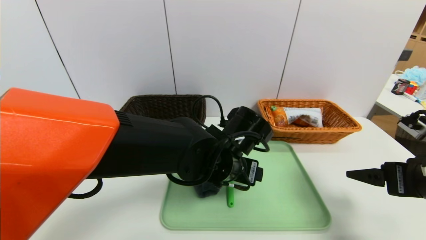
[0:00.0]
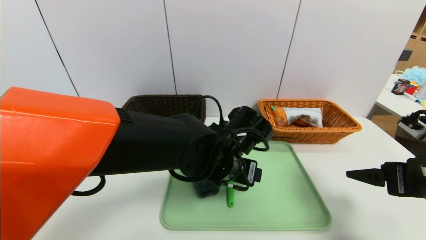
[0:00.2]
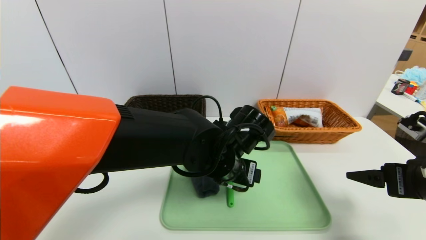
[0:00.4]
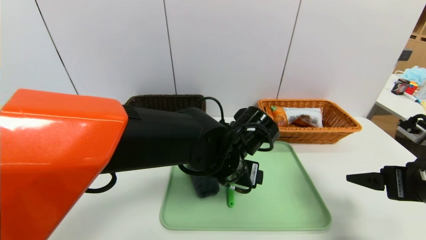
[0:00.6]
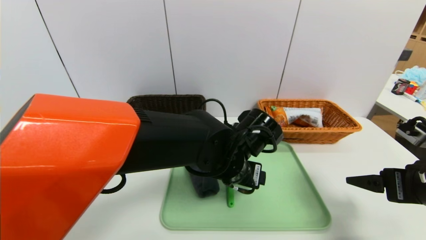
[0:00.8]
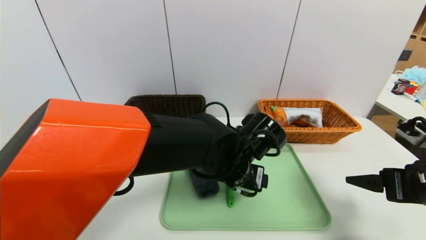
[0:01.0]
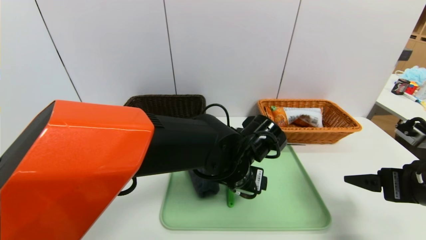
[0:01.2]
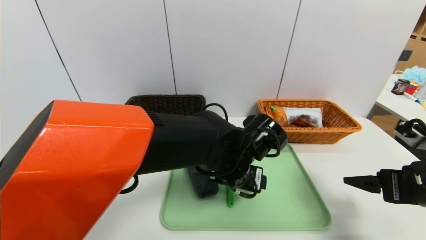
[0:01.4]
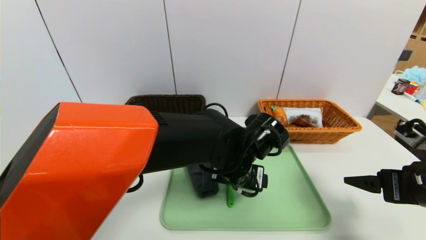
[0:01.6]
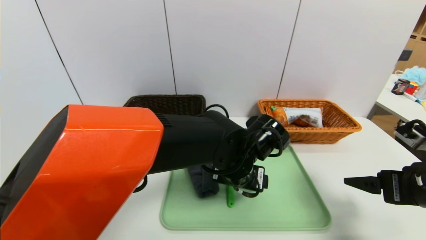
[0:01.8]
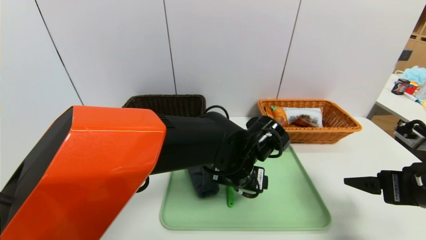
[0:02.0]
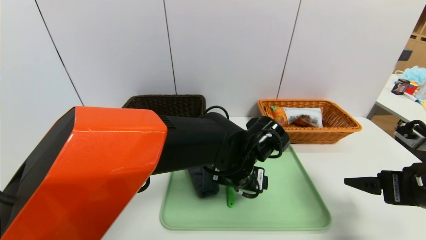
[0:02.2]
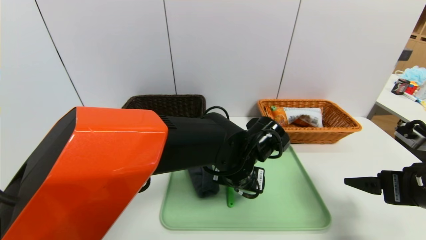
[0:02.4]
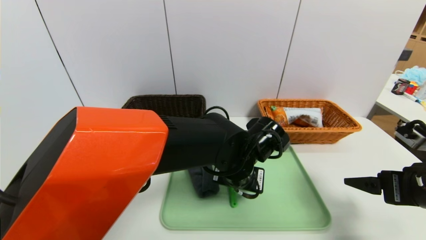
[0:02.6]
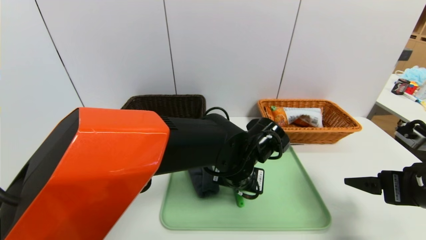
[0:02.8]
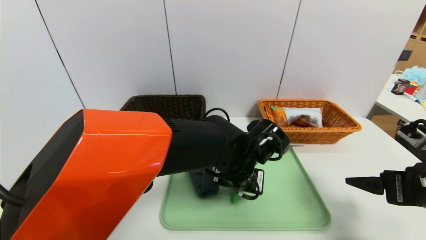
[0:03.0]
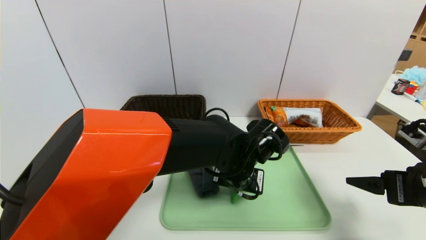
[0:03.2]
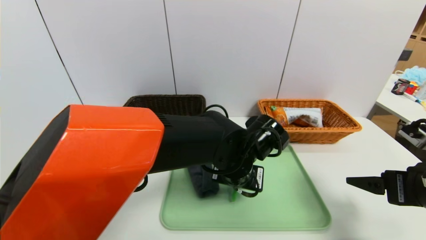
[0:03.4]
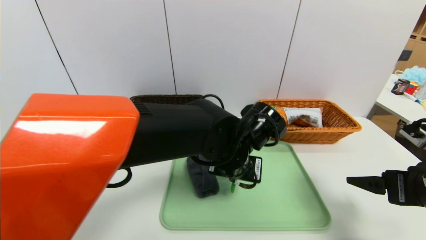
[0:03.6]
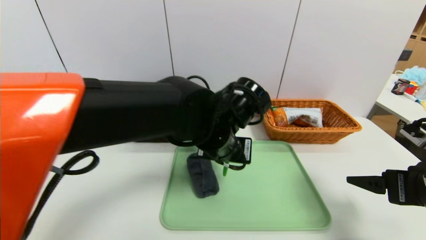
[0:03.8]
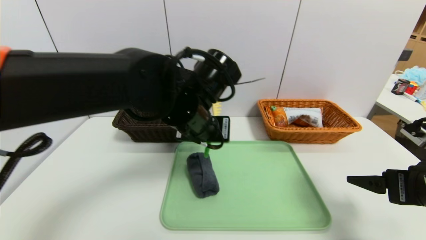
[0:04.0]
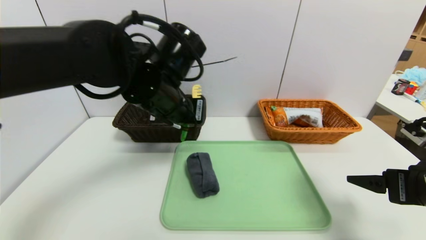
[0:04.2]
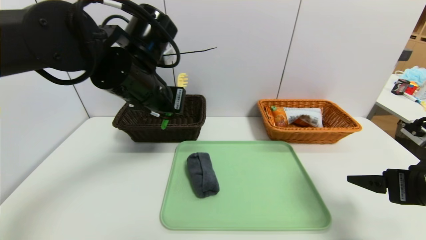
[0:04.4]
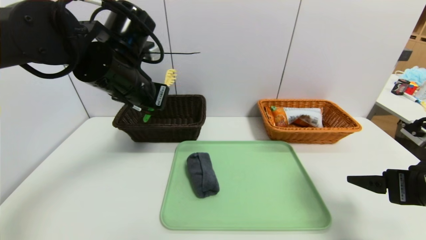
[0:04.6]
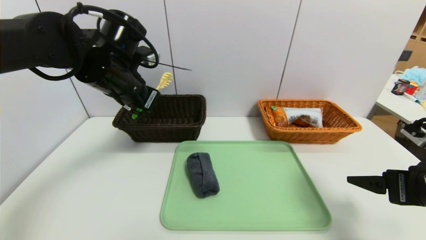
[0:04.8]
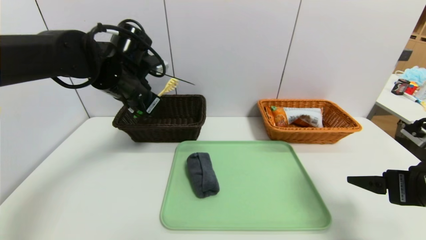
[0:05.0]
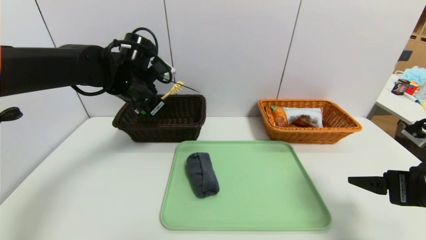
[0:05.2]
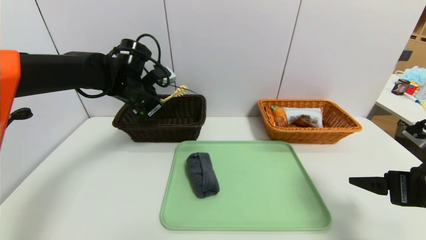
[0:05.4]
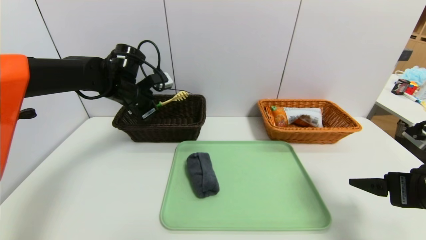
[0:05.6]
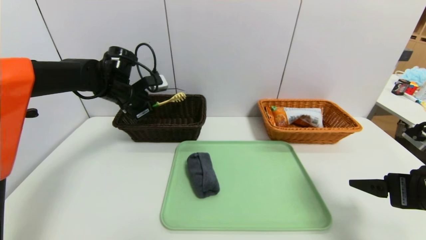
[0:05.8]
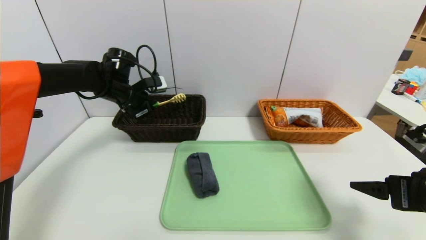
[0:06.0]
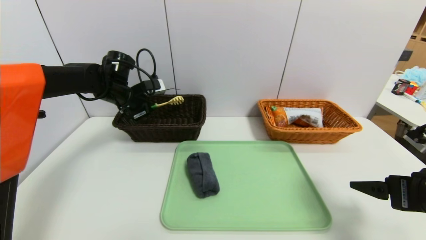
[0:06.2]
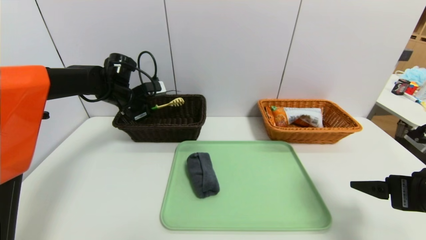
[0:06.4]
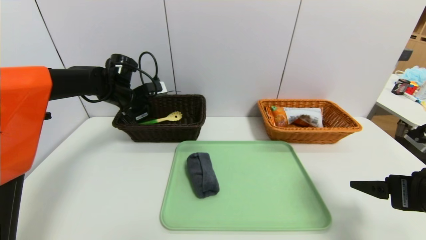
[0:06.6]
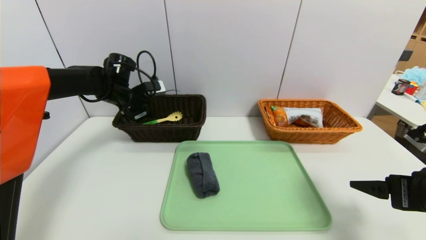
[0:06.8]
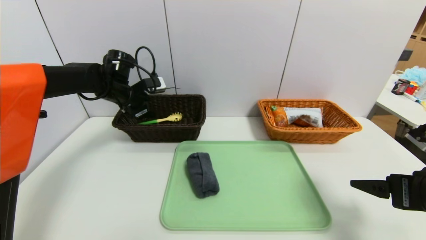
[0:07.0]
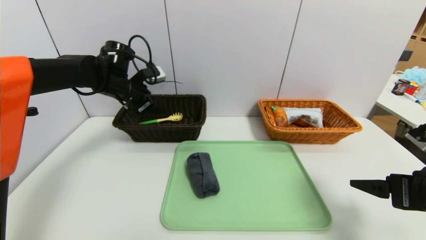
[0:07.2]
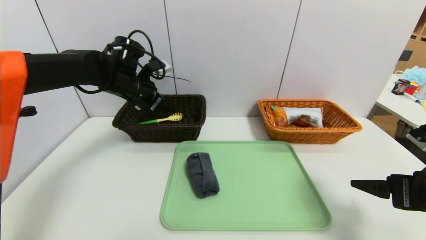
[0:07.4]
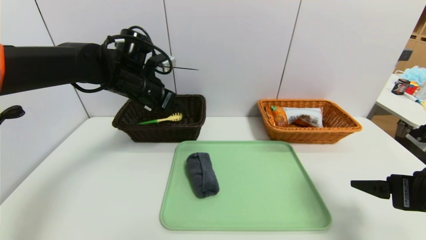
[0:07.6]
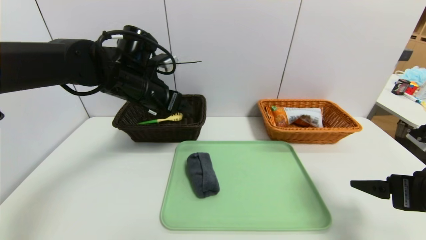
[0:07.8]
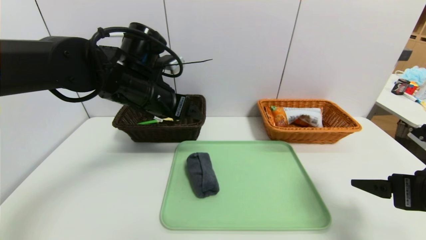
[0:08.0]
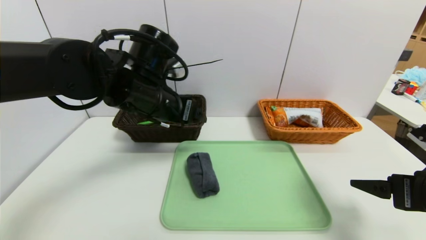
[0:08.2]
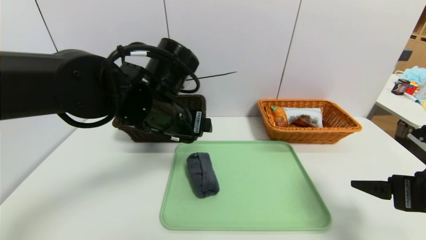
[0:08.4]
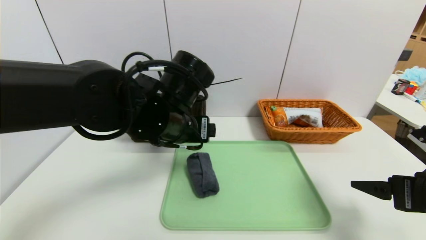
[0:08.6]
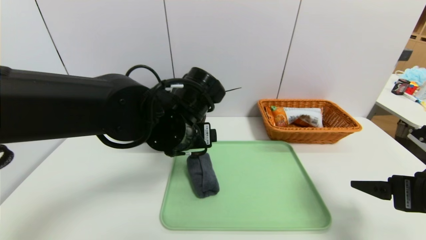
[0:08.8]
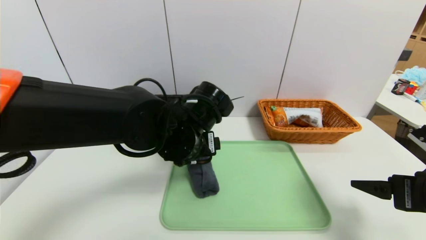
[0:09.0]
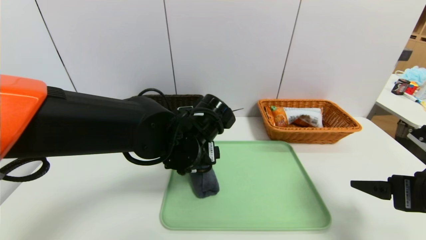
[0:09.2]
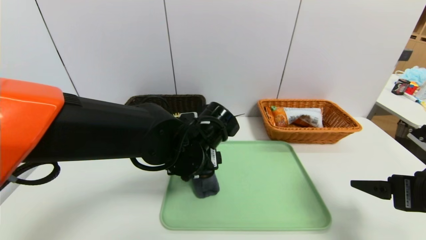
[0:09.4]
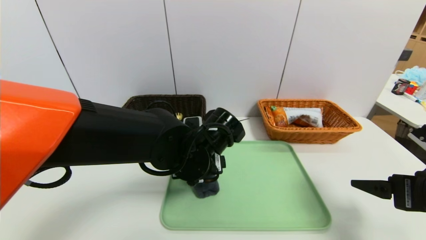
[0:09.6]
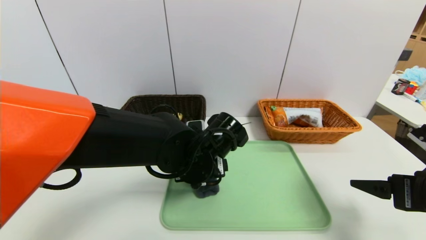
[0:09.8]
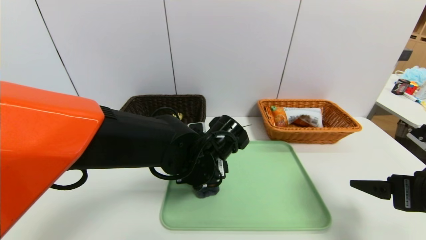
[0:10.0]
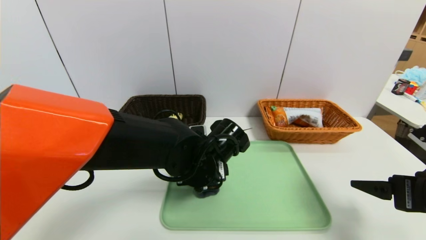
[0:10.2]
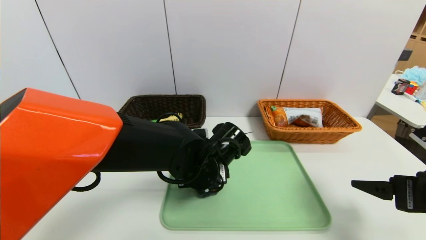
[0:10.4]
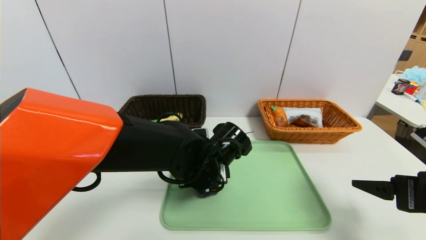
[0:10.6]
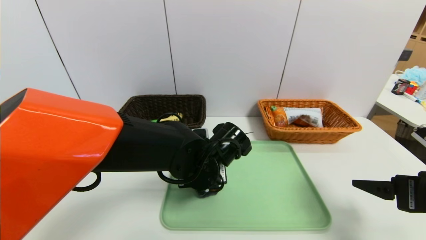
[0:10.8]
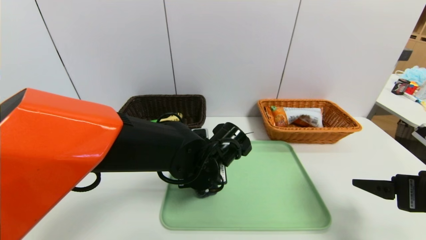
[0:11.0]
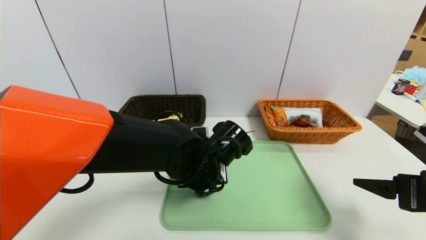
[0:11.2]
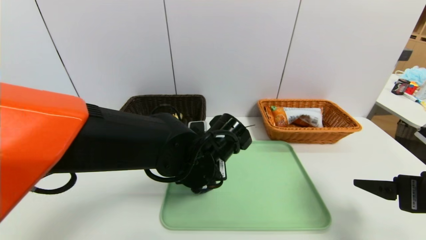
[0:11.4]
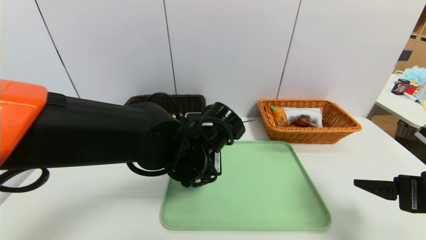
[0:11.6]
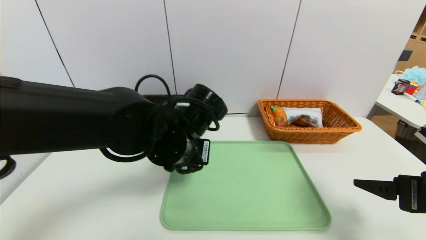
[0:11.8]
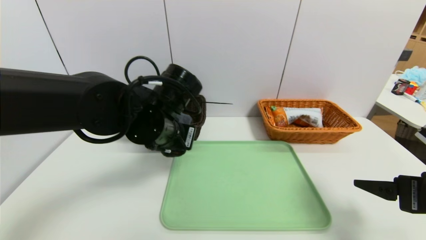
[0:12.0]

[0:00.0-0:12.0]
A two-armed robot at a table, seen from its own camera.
Task of the whole recording: place the food in the right basket with the right gripper, and place the non food items in the left basket with the left gripper.
Step, 0:00.0 to 0:07.0: Grasp the back scratcher and put it in the left basket.
0:00.0 to 0:01.6: There are only small adjustments of the grippers.
0:01.6 to 0:03.0: The left gripper closes up.
0:03.0 to 0:04.4: The left gripper shifts approximately 25 cm to the left and upward.
0:04.4 to 0:06.0: The left gripper goes some 20 cm forward, to the left and downward.
0:06.0 to 0:07.6: The left gripper heads to the right and backward, covering about 10 cm, and opens up.
0:07.6 to 0:09.0: The left gripper shifts about 20 cm to the right, backward and downward.
0:09.0 to 0:10.4: The left gripper moves downward, some 5 cm.
0:10.4 to 0:12.0: The left gripper travels upward and to the left by about 10 cm, and closes up.

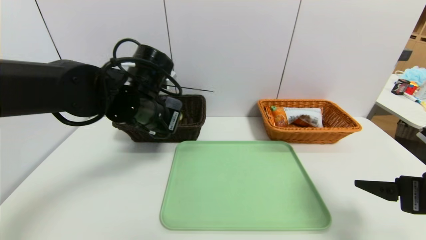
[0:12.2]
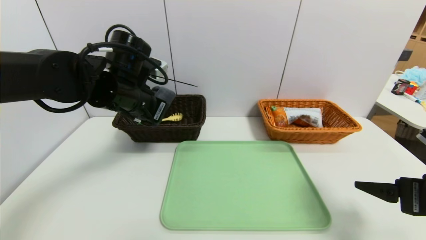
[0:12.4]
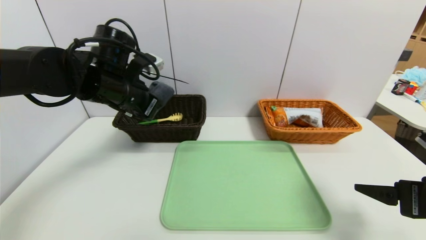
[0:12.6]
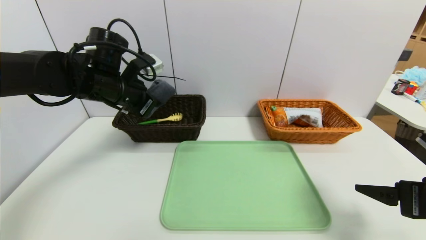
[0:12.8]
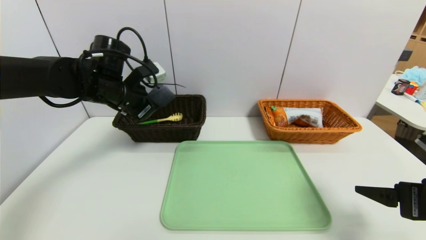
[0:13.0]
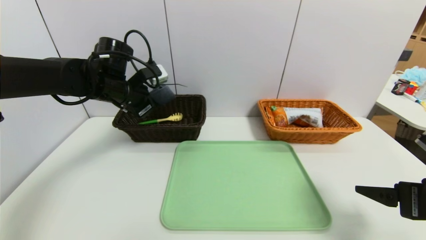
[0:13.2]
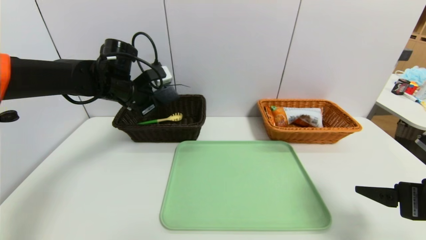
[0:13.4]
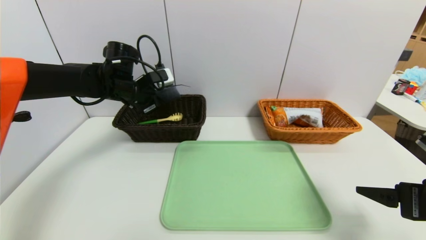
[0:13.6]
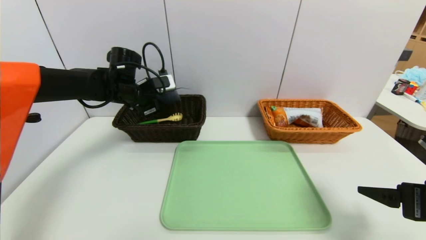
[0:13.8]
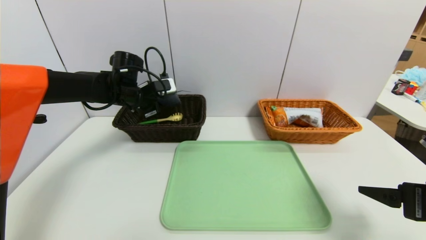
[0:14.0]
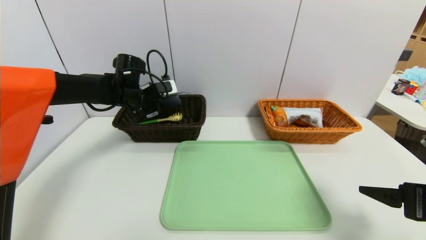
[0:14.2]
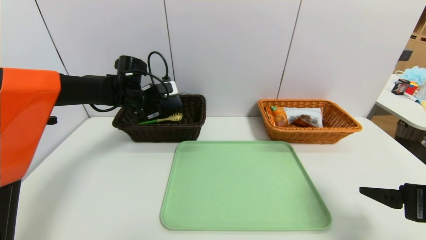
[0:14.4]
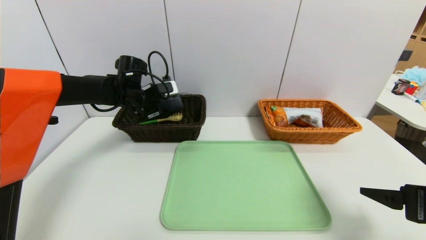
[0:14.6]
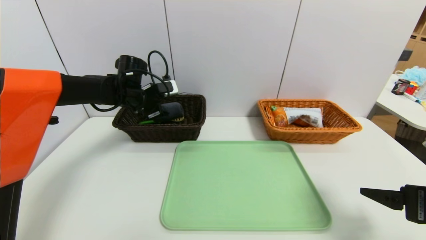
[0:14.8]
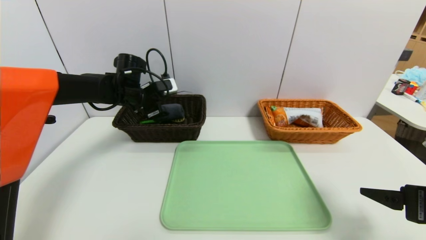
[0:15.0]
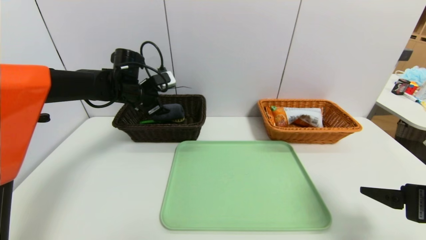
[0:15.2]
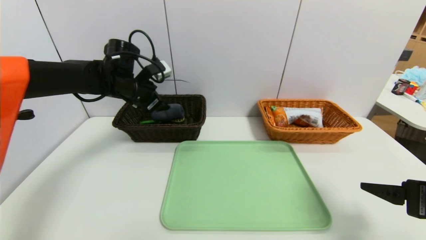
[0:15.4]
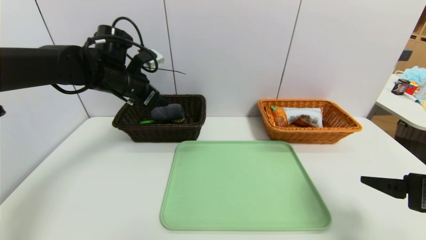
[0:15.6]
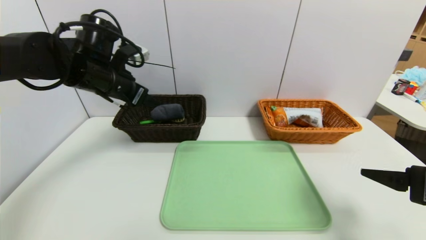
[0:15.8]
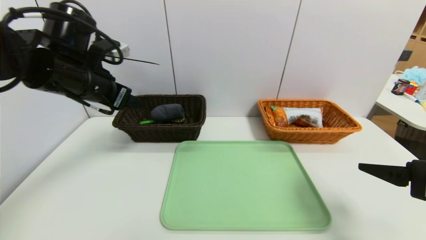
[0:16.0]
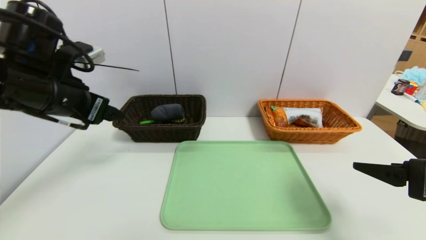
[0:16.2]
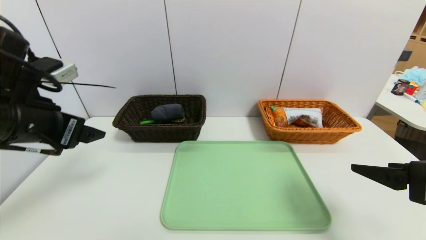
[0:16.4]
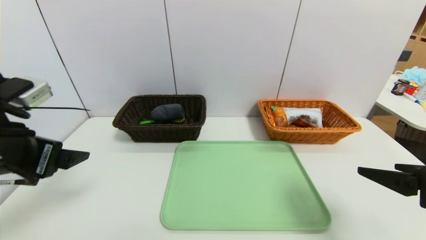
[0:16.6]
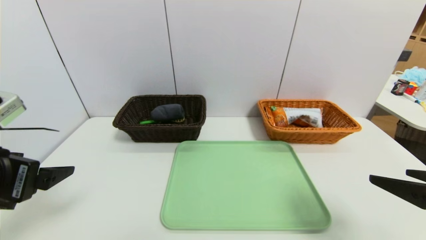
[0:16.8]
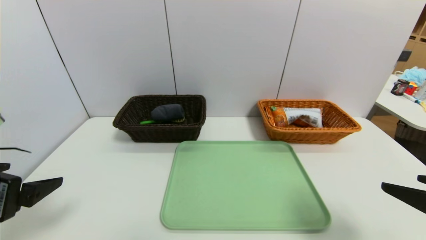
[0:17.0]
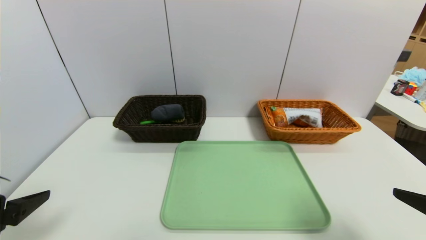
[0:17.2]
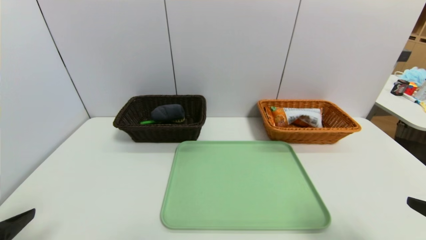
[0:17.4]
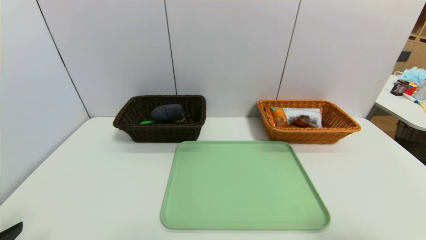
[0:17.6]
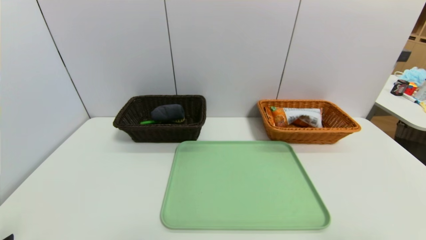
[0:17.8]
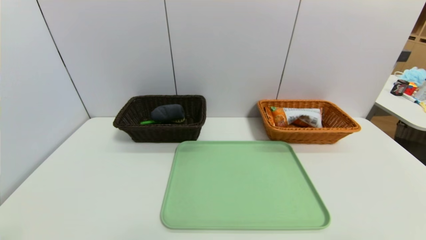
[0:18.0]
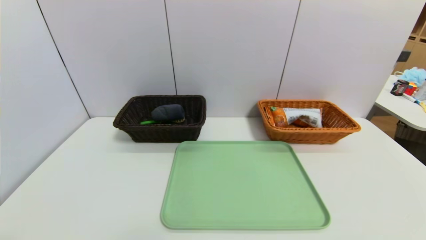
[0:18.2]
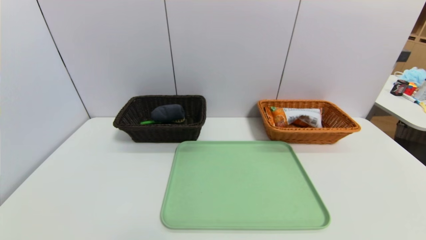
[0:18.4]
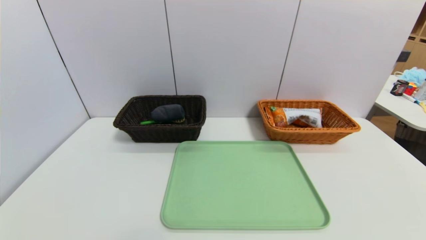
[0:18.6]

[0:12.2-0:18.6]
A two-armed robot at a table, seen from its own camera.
Task of the whole recording: place the food in the right basket with the right gripper, and place the non food items in the left basket with the left gripper.
Step, 0:12.2 to 0:15.0: Grasp the grey towel and put it in the left basket.
0:12.2 to 0:13.8: The left gripper goes approximately 15 cm forward and to the left.
0:13.8 to 0:15.4: The left gripper opens up.
0:15.4 to 0:17.0: The right gripper changes place by about 5 cm, while the left gripper heads backward, covering about 30 cm.
0:17.0 to 0:18.6: The left gripper is displaced backward and downward by approximately 15 cm. Meanwhile the right gripper is displaced backward by some 10 cm.
